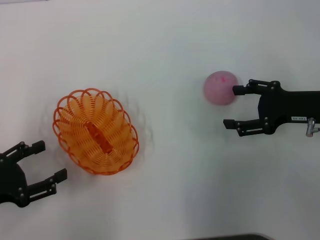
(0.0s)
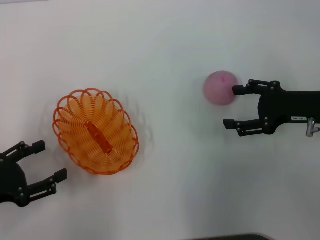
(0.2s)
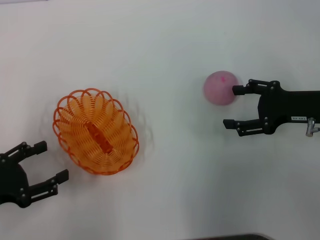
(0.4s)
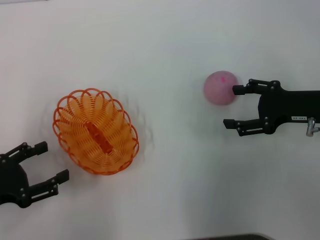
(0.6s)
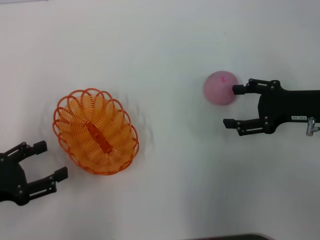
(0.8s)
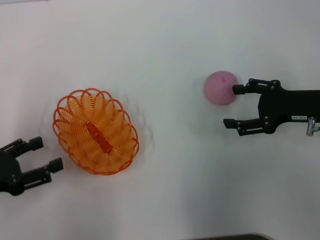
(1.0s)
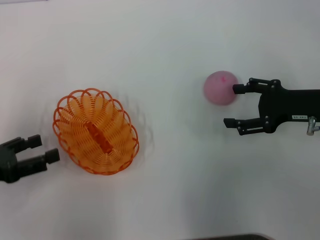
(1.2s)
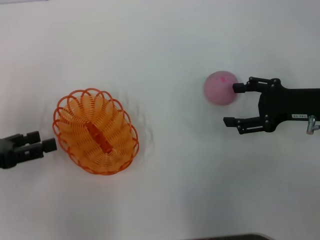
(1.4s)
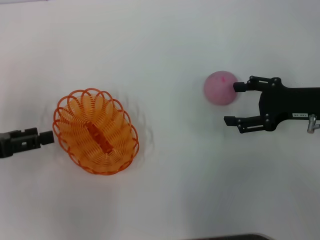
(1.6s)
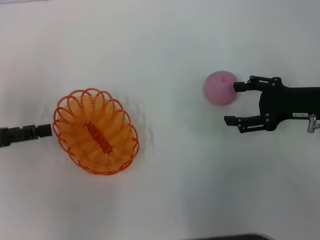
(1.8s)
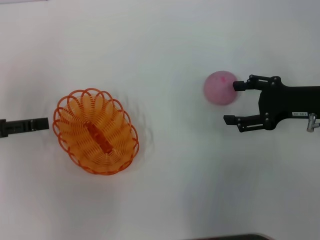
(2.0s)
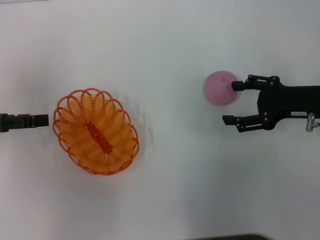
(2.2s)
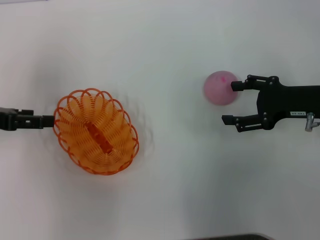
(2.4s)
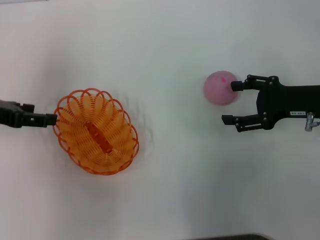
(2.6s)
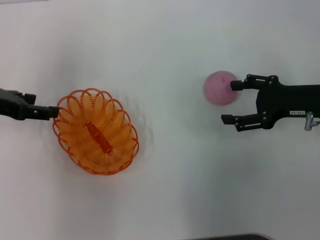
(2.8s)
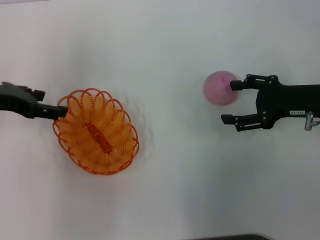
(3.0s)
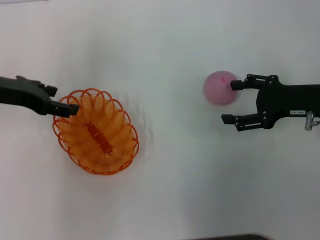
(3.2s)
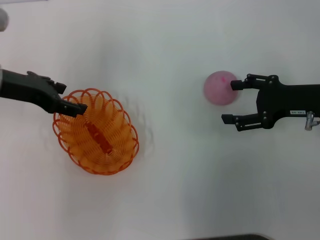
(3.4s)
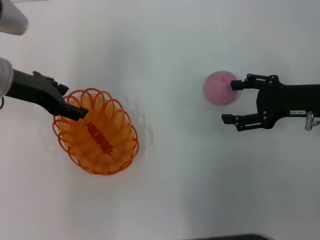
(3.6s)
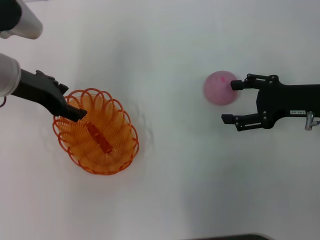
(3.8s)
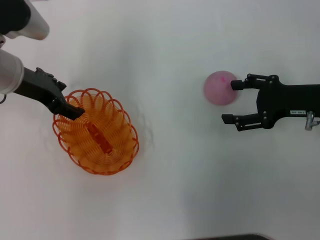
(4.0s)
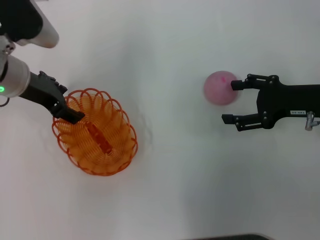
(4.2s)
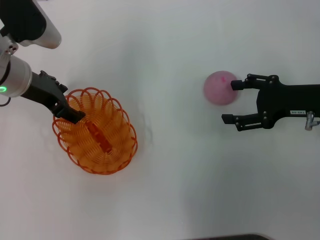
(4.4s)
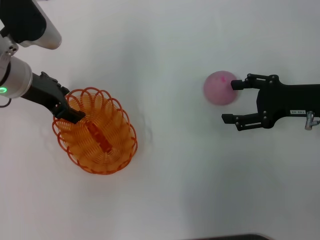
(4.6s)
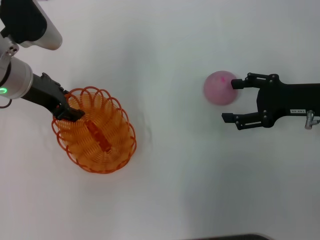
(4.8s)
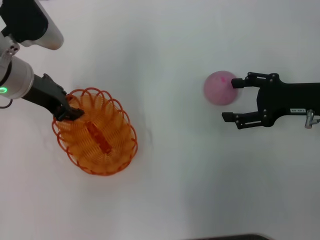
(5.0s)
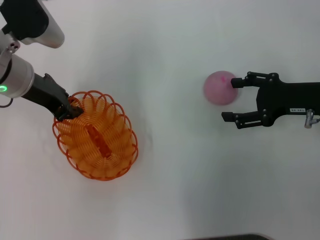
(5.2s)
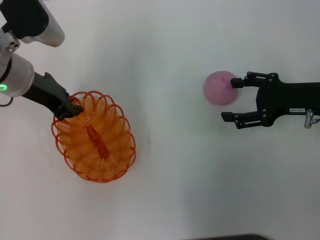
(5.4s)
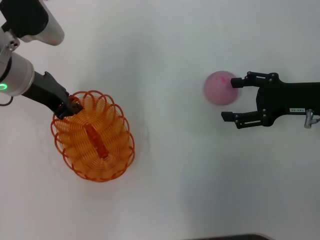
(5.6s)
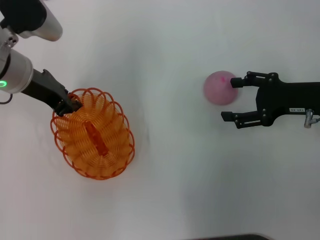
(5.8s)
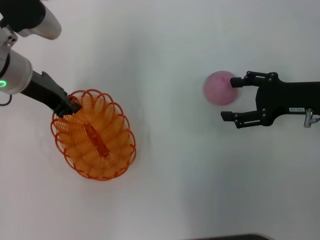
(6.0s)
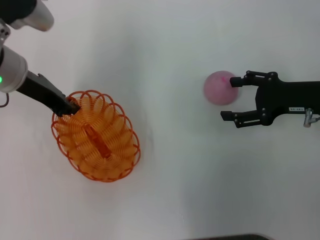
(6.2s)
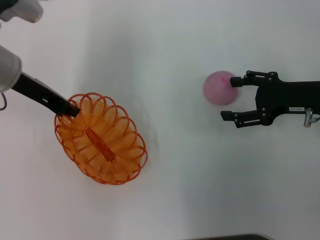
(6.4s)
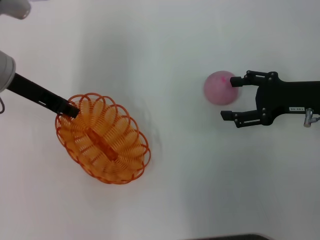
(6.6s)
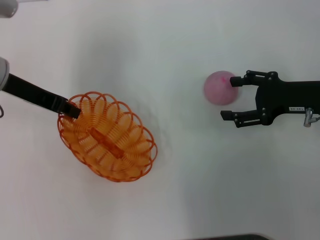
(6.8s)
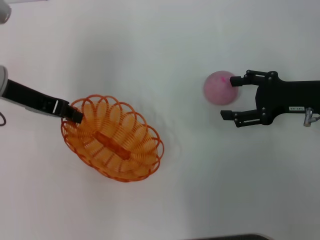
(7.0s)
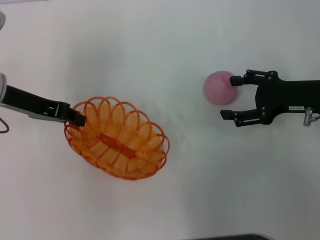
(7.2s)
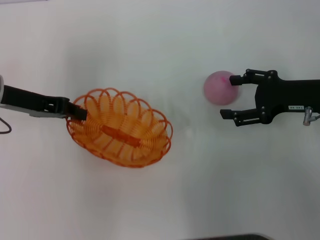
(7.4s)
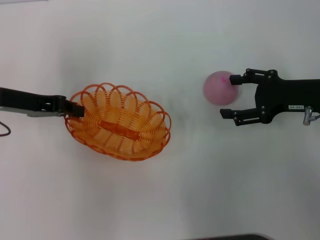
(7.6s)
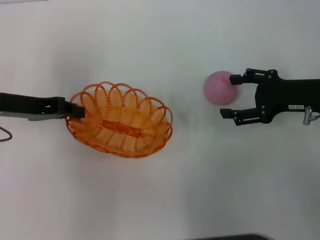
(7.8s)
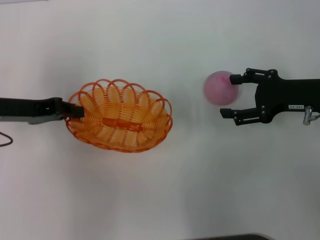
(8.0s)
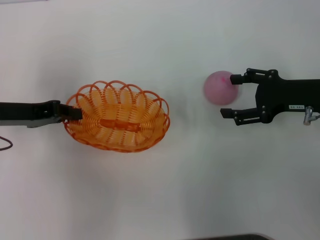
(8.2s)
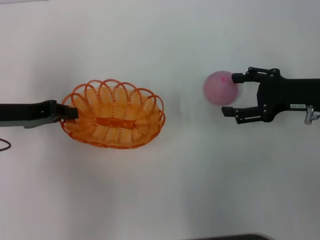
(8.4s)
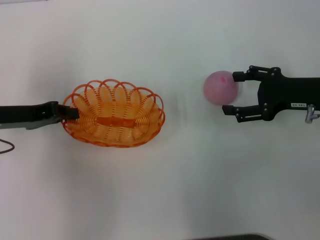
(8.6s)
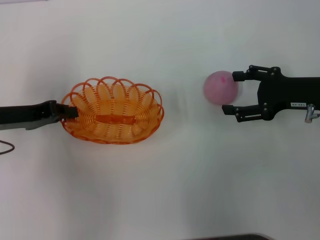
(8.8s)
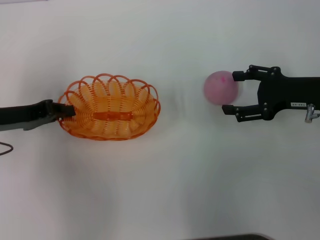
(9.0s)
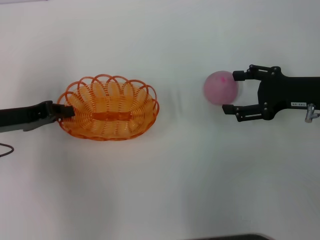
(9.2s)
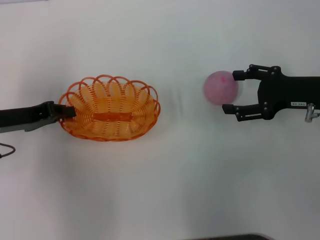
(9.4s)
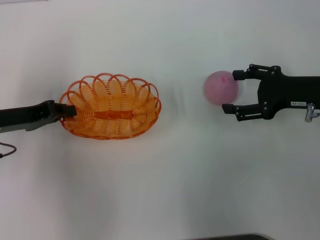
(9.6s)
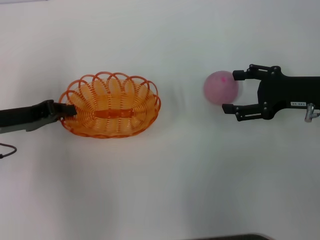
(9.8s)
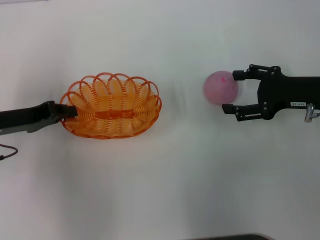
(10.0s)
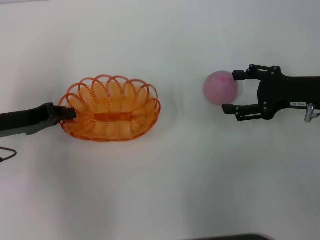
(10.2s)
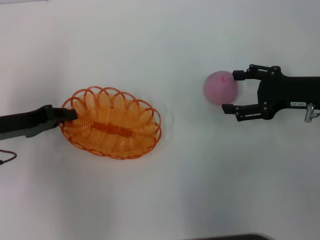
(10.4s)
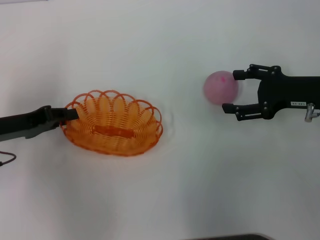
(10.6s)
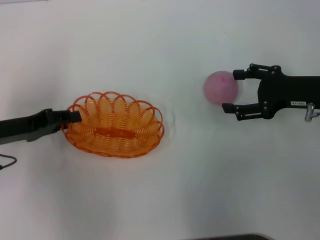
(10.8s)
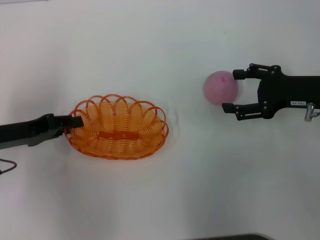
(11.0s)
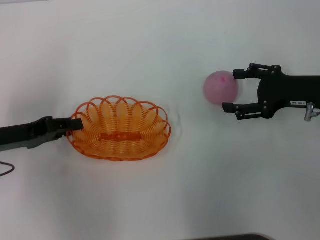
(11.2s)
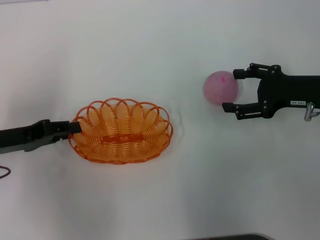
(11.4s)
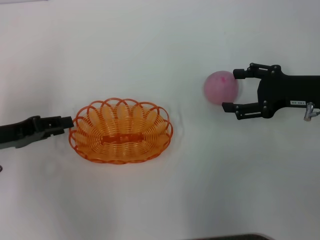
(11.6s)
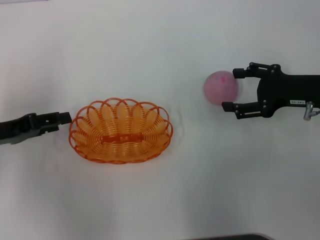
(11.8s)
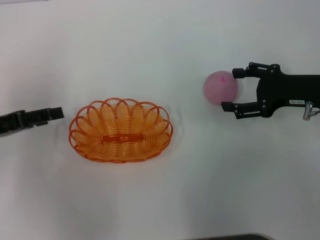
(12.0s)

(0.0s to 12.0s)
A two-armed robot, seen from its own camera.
Step, 0.0s - 6.8s: Pick up the basket with the left gripper.
0.0s - 1.6s: The left gripper moves forward, about 5 cm.
1.6s - 3.0s: The left gripper travels forward and to the right by about 10 cm.
3.0s - 4.4s: The left gripper heads to the right, covering approximately 10 cm.
4.4s - 6.0s: The left gripper closes.
6.0s - 7.6s: The left gripper goes roughly 5 cm to the left.
7.6s - 9.0s: The left gripper ends up approximately 5 cm from where it was.
9.0s - 10.4s: The grippers make only small movements.
10.4s - 12.0s: The left gripper opens.

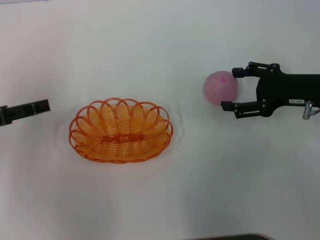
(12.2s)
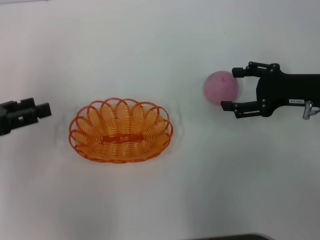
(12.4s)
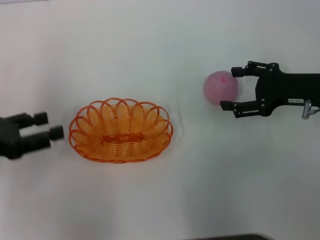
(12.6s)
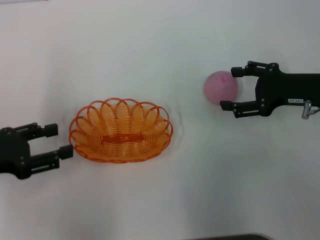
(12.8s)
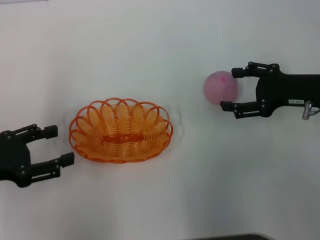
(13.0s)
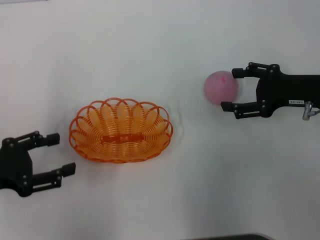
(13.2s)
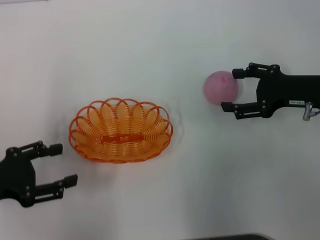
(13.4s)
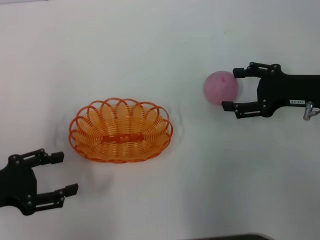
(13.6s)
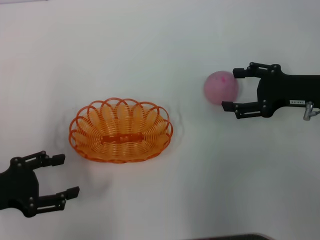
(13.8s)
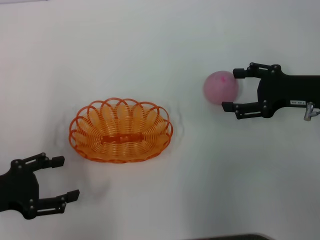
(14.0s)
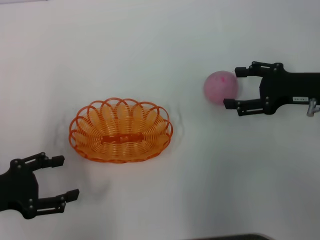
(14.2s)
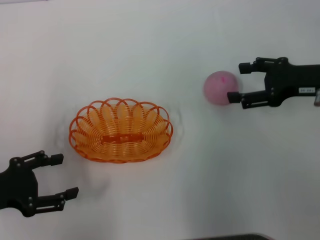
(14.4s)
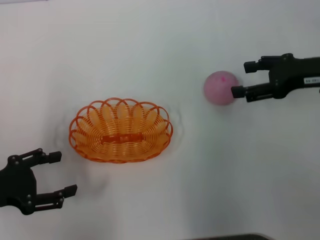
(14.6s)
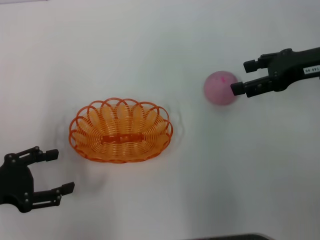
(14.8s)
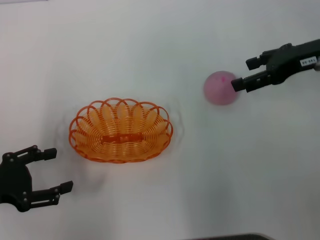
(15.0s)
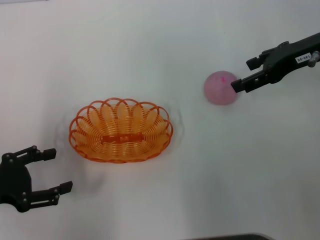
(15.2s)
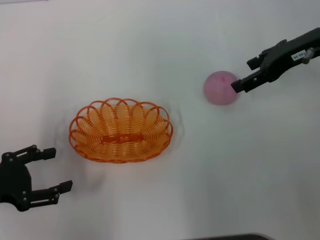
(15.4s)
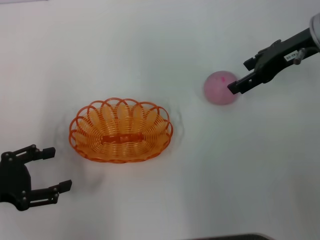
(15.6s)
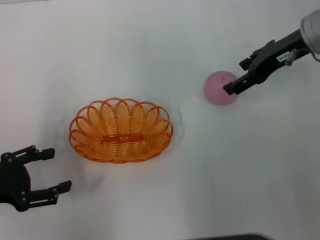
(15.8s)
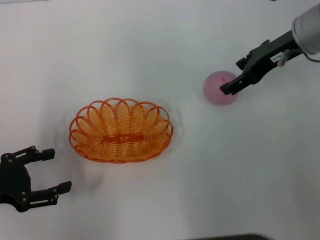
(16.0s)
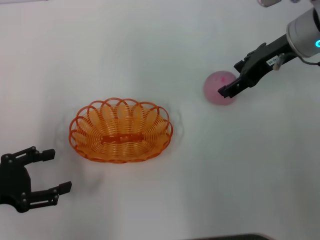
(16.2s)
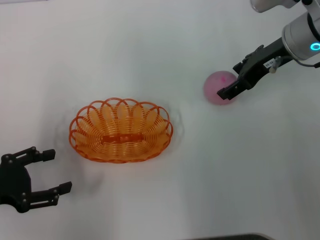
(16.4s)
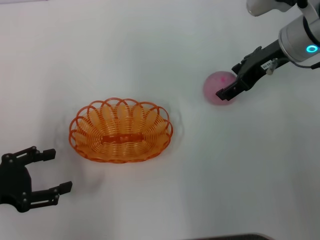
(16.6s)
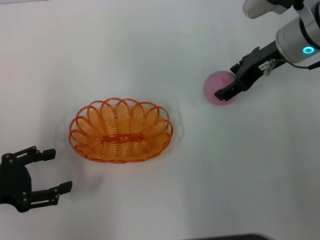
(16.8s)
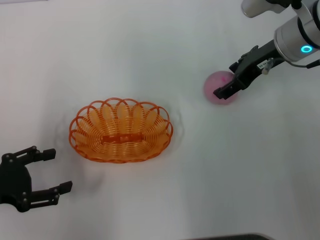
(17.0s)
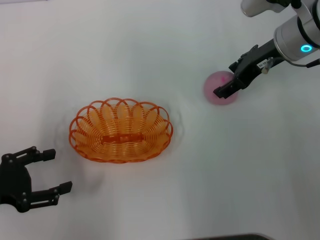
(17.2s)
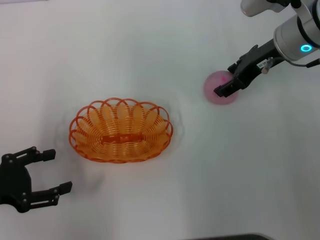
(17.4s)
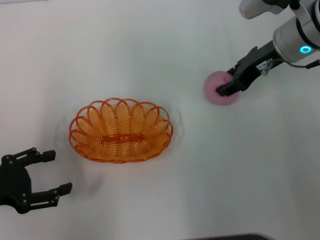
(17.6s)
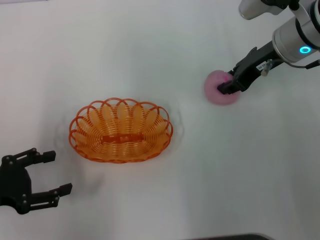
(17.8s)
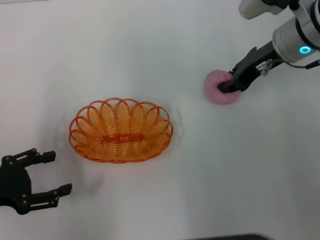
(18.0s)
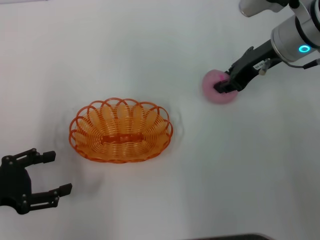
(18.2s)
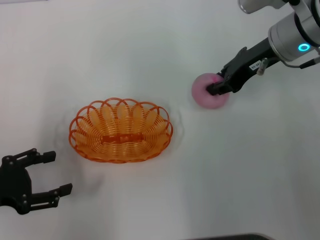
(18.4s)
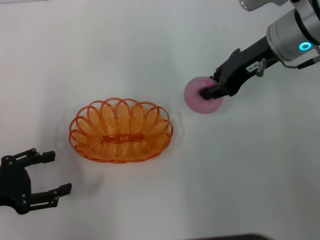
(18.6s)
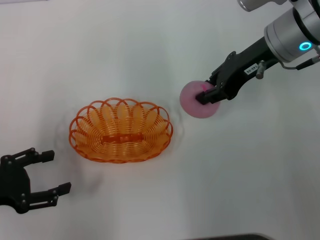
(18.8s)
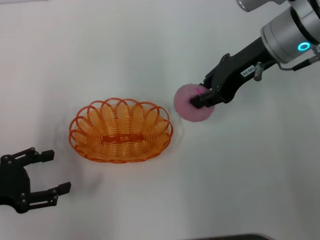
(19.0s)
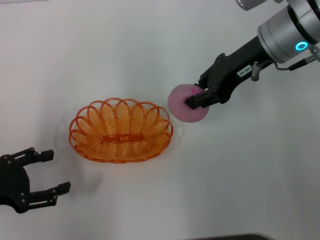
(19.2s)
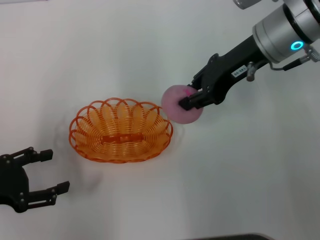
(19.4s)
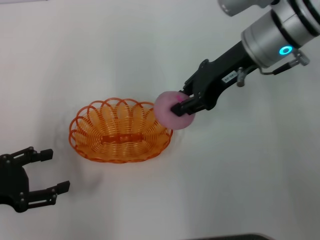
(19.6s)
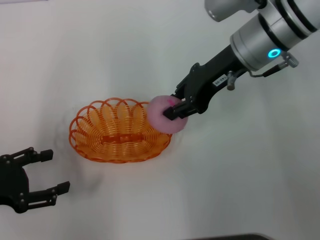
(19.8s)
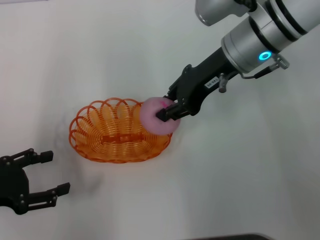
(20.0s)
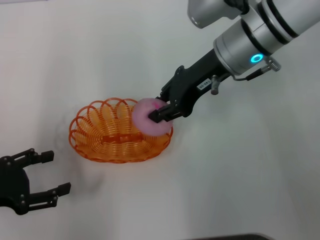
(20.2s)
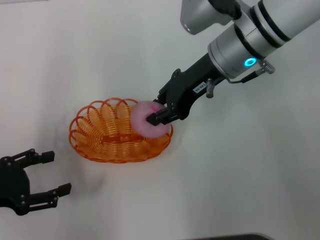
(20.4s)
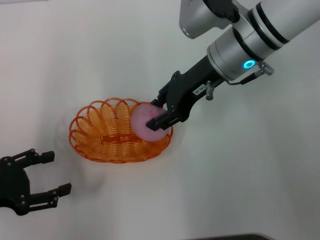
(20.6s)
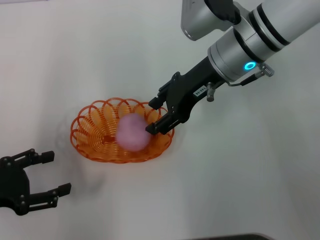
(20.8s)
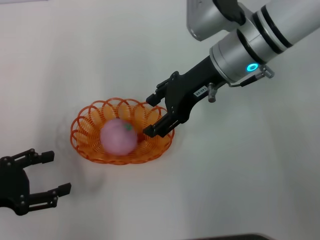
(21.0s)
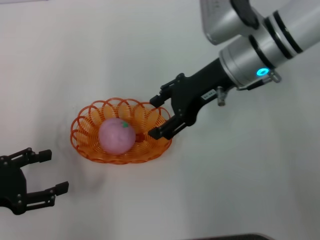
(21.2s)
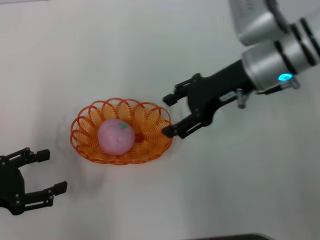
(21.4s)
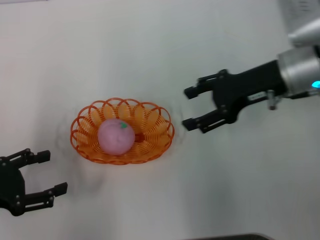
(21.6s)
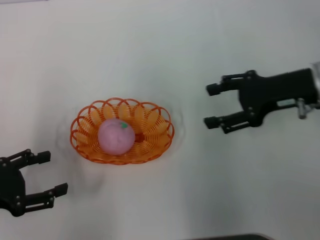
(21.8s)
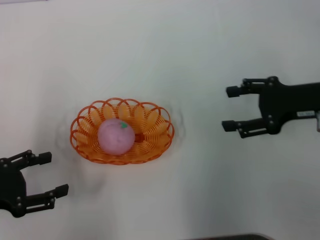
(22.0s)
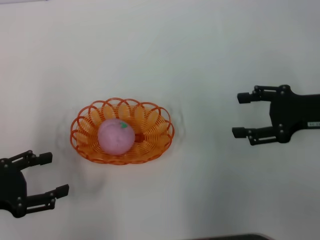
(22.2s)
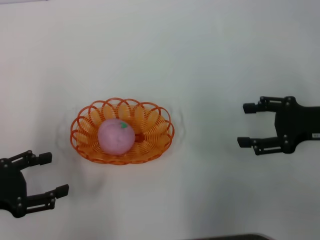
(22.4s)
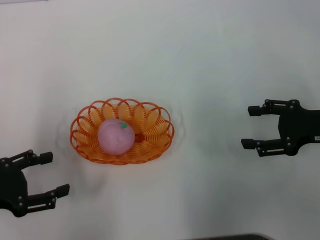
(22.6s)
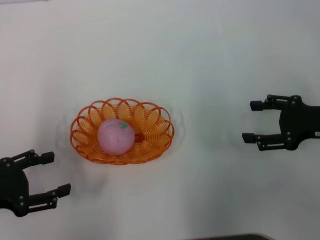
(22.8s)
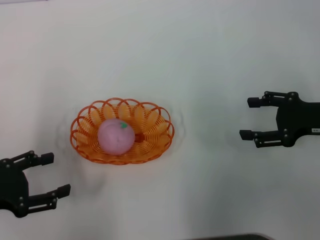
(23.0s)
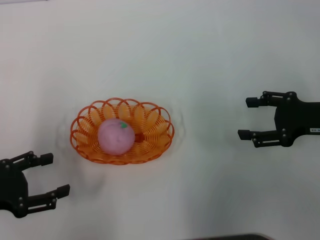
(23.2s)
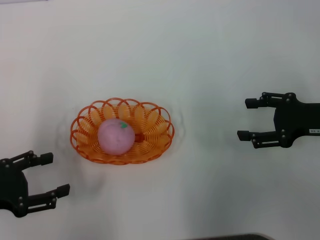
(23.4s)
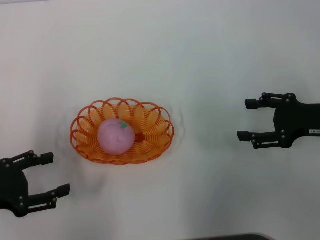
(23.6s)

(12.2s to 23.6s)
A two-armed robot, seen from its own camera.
Step, 12.6s - 18.2s: Pick up the peach with the right gripper.
Step, 18.6s - 21.6s: Place the peach into the basket with the right gripper.
12.2s - 13.6s: The left gripper heads backward, covering about 5 cm.
13.6s - 15.0s: The right gripper heads upward, covering some 10 cm.
15.0s - 16.4s: The right gripper moves to the left, about 5 cm.
16.4s - 17.8s: The right gripper closes its fingers.
17.8s - 19.4s: The right gripper changes place by roughly 5 cm, and closes up.
19.4s - 20.8s: The right gripper shifts roughly 5 cm to the left.
20.8s - 22.2s: The right gripper travels to the right and backward by some 20 cm, and opens.
22.2s - 23.6s: The grippers move only a little.
